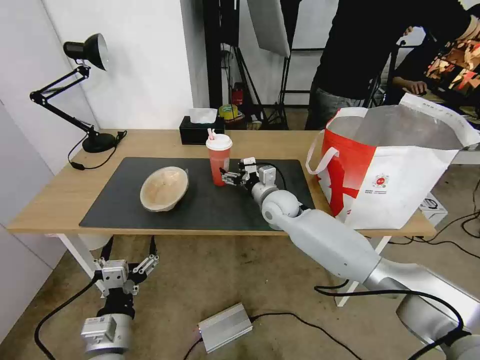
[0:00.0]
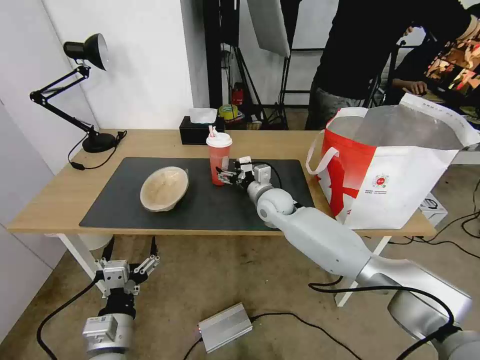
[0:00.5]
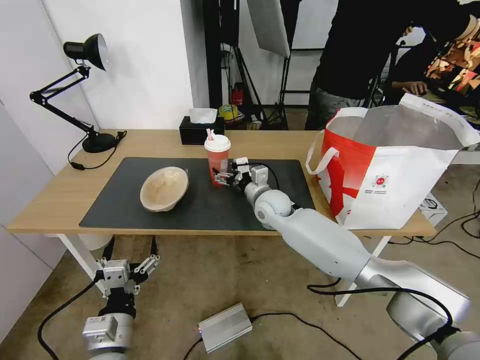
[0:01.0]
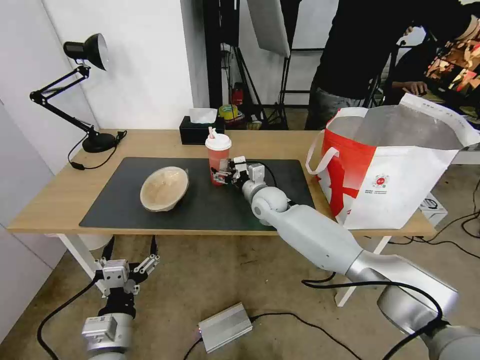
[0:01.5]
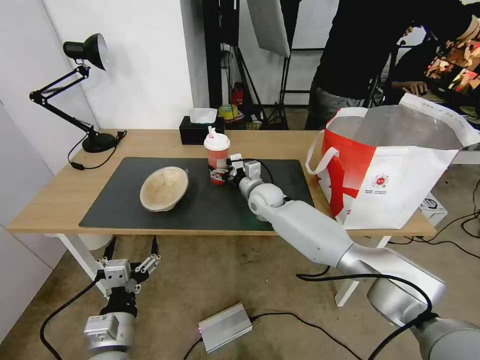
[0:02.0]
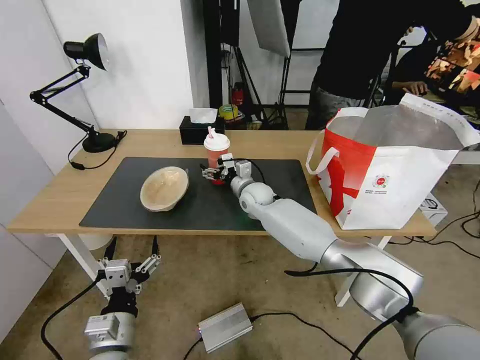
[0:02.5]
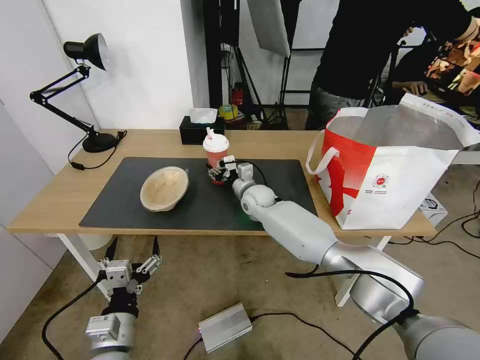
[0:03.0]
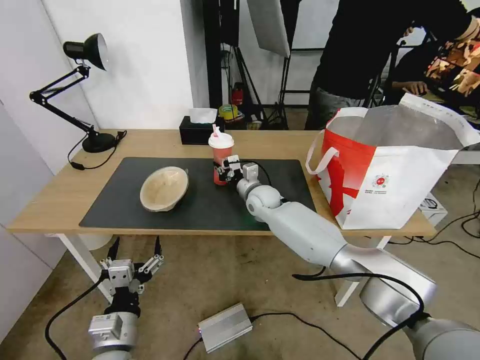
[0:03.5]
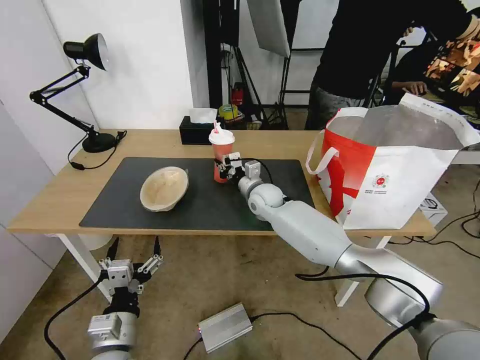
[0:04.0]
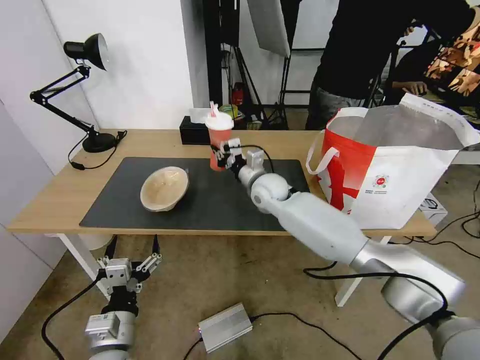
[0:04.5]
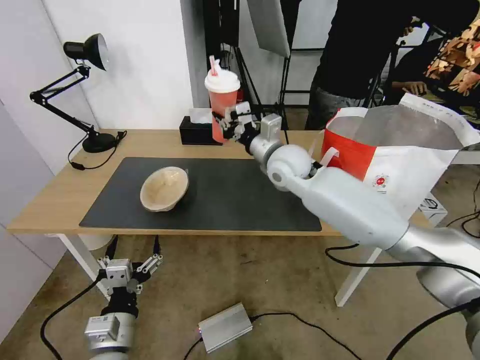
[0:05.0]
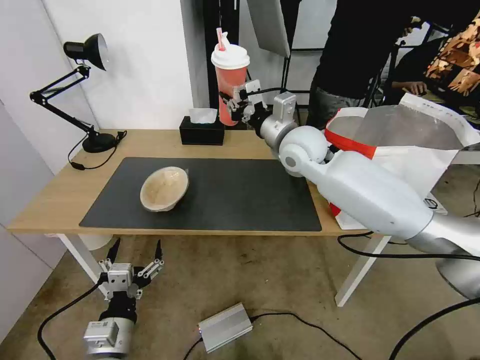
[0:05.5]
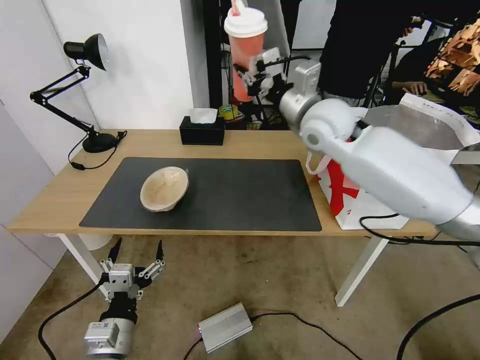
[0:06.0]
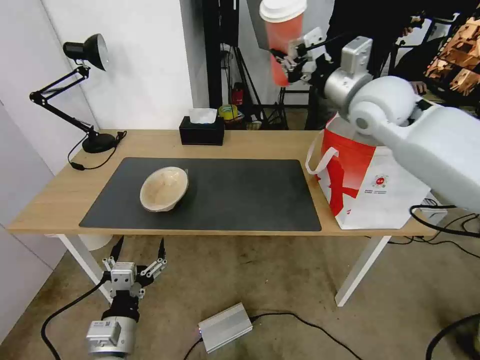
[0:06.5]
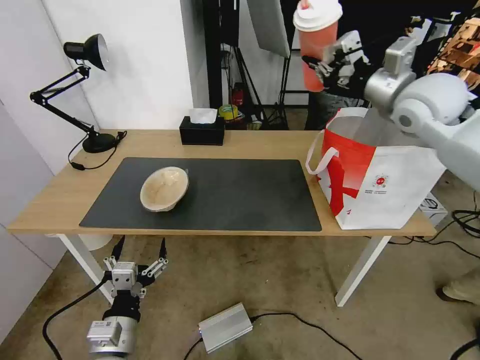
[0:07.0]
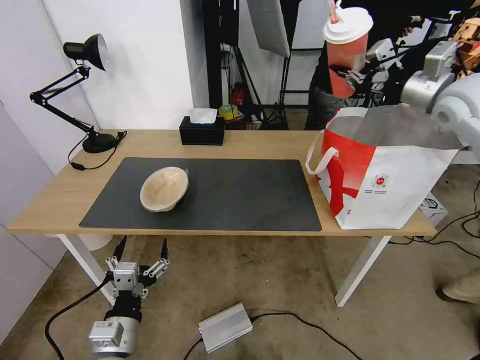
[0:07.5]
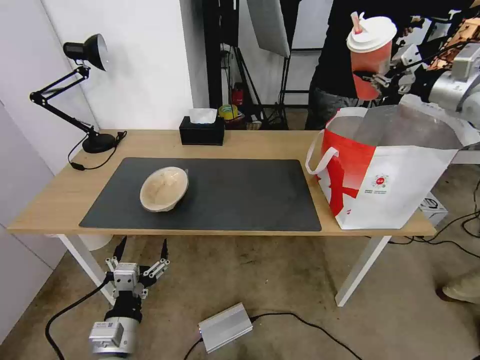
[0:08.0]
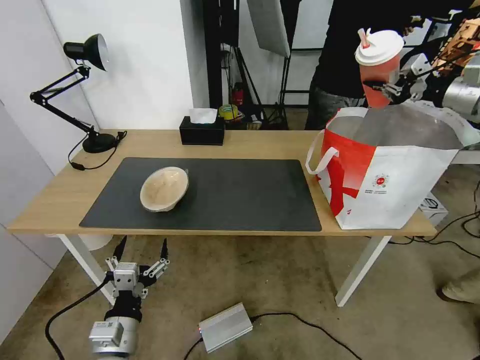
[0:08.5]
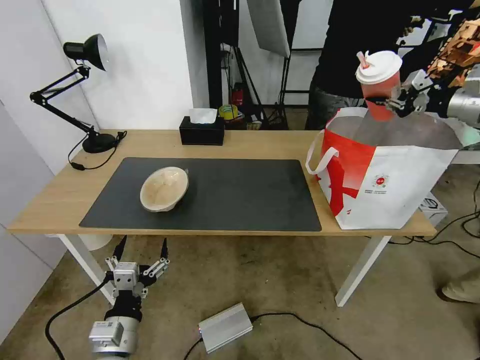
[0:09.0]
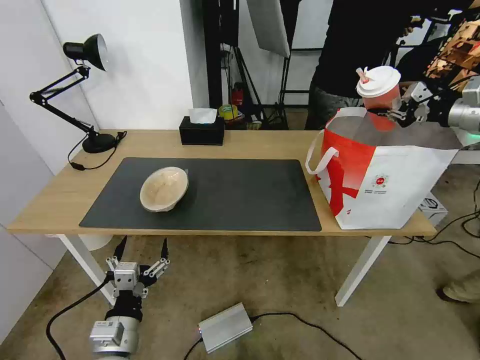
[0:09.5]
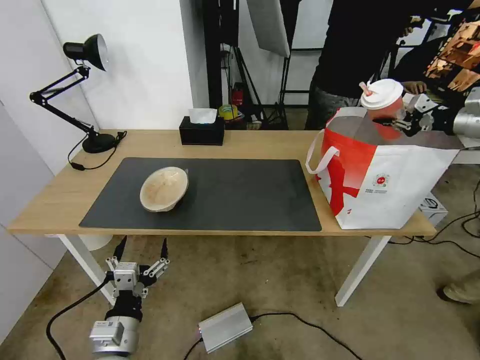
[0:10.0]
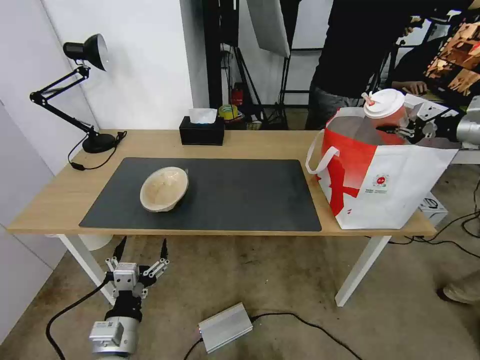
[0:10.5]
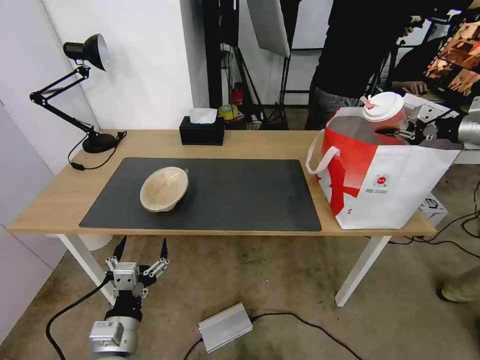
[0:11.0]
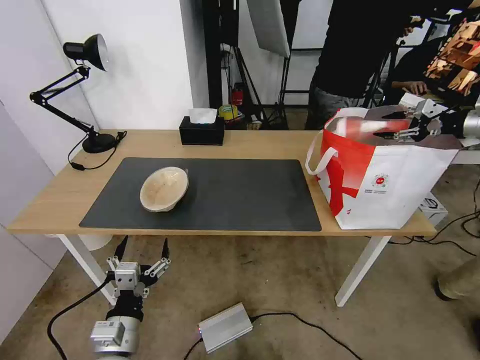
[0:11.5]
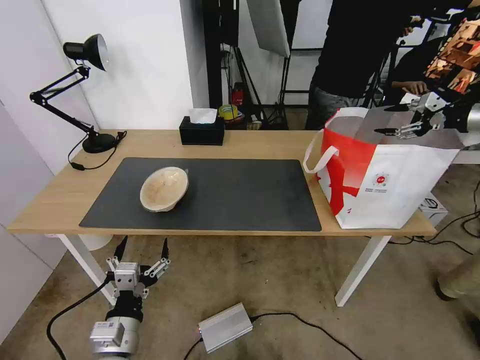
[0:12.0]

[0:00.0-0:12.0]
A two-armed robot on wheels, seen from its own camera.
Task of the whole recording: Pick up the trash from the table and place it into the takeout bag.
0:00.0 to 0:02.0: The right gripper shifts by roughly 5 cm.
0:02.0 to 0:04.0: The right gripper closes.
0:04.0 to 0:06.0: The right gripper travels upward by about 25 cm.
0:06.0 to 0:08.0: The right gripper moves to the right, approximately 30 cm.
0:08.0 to 0:10.0: The right gripper heads to the right, covering some 10 cm.
0:10.0 to 0:12.0: The right gripper opens up.

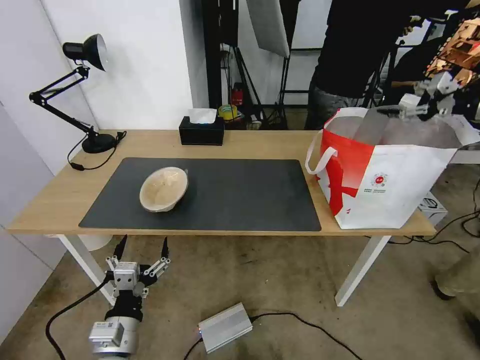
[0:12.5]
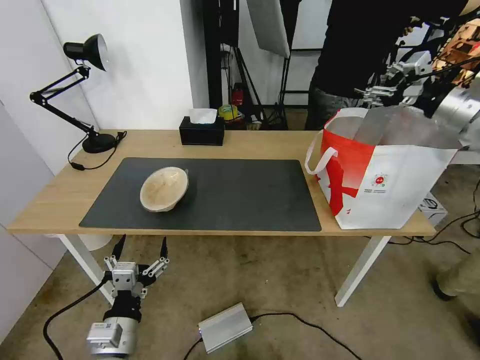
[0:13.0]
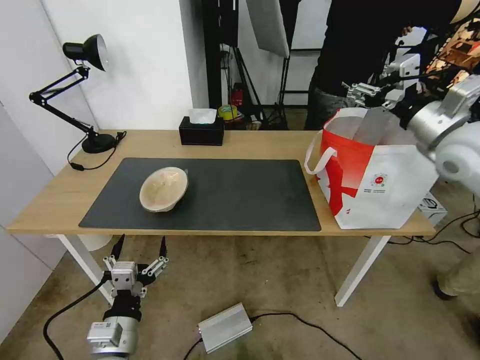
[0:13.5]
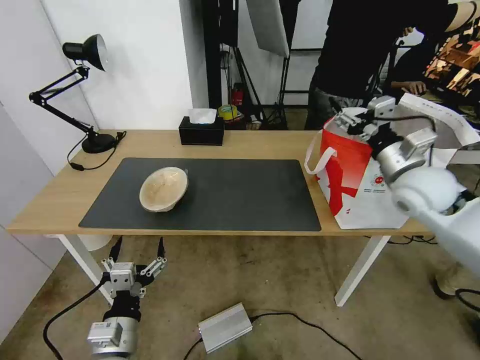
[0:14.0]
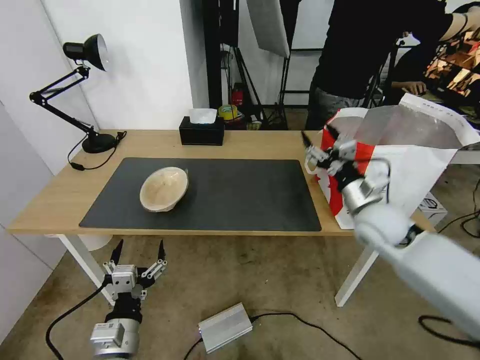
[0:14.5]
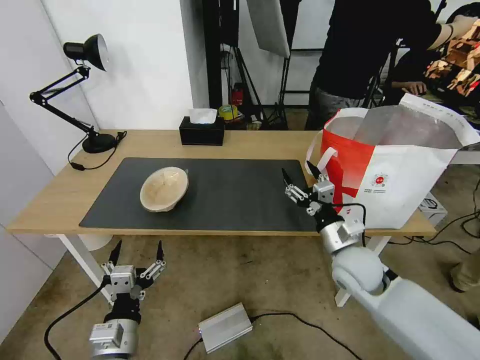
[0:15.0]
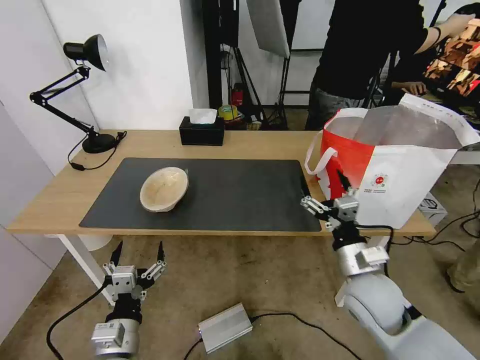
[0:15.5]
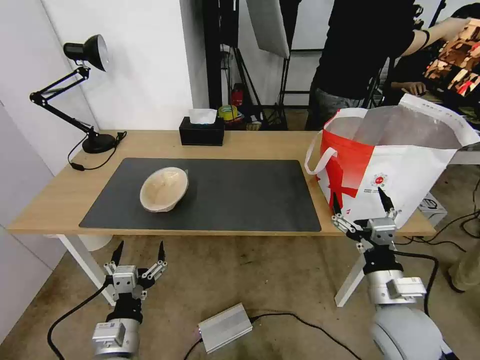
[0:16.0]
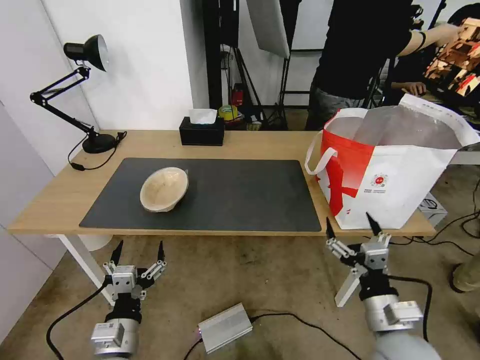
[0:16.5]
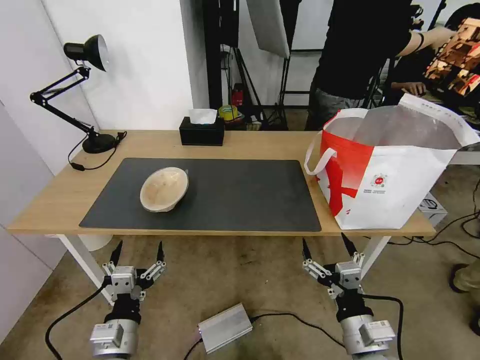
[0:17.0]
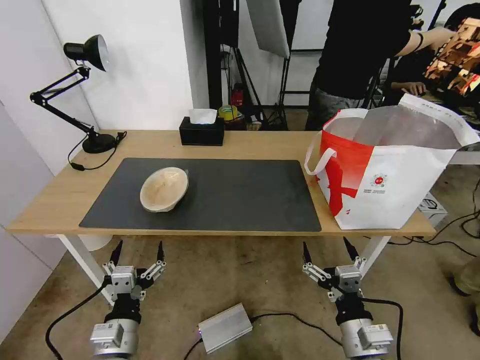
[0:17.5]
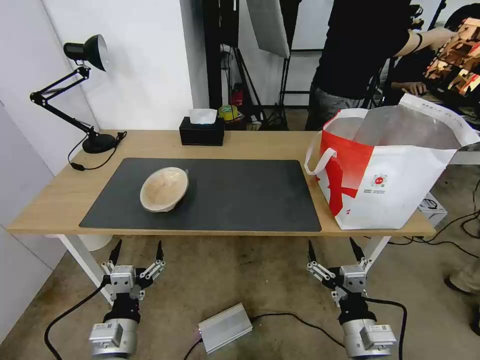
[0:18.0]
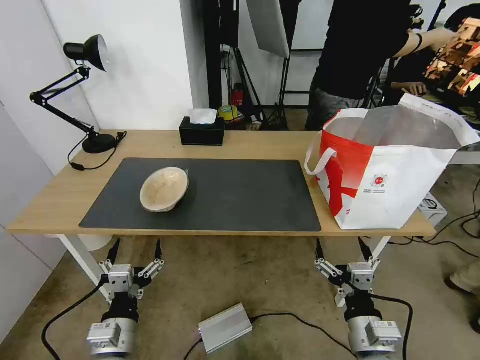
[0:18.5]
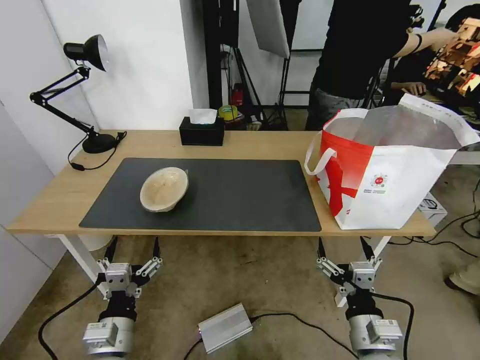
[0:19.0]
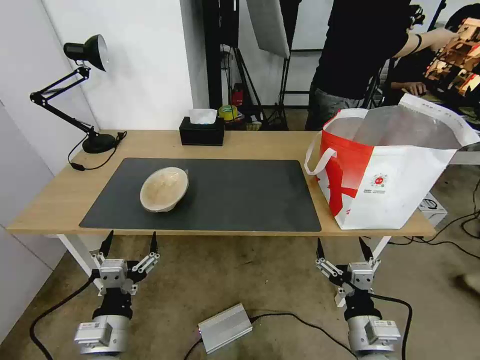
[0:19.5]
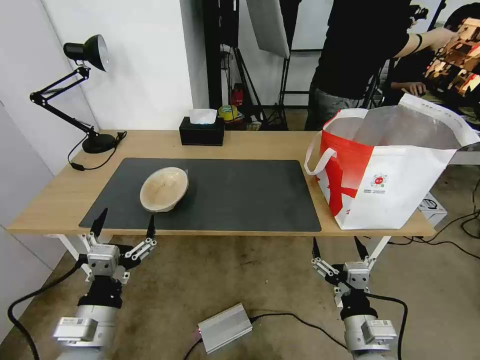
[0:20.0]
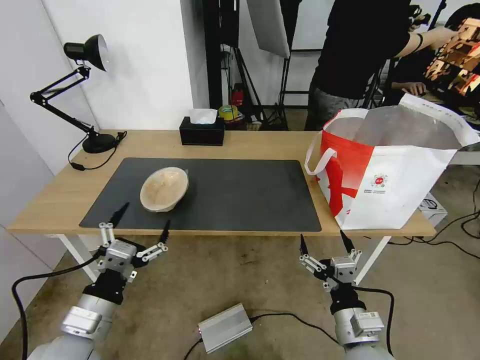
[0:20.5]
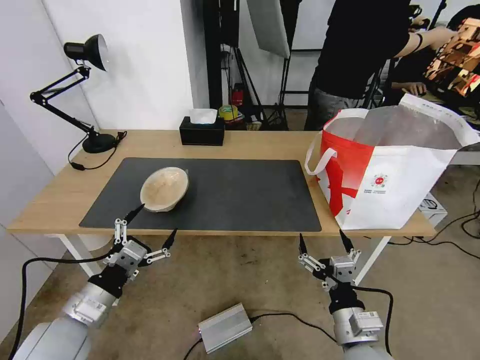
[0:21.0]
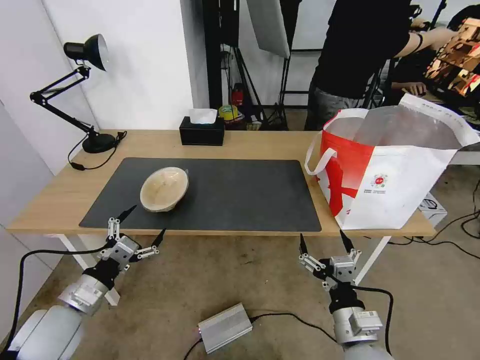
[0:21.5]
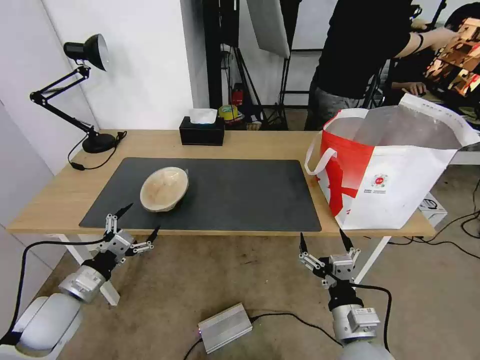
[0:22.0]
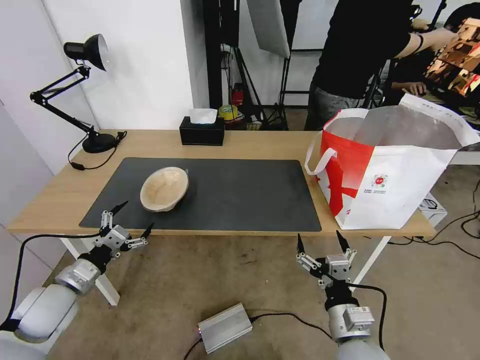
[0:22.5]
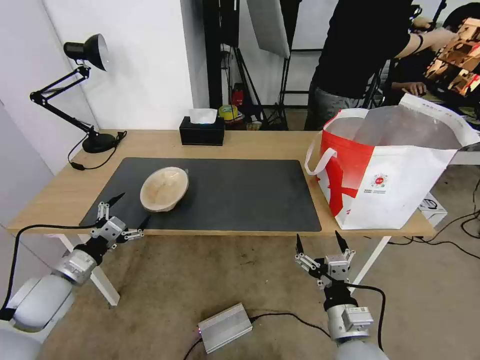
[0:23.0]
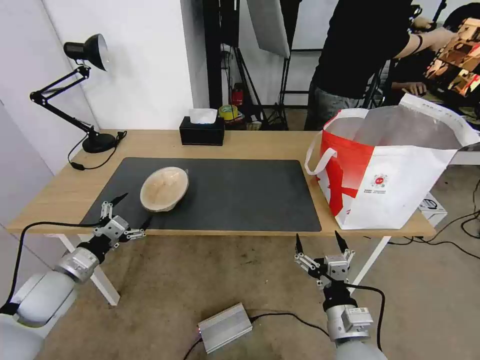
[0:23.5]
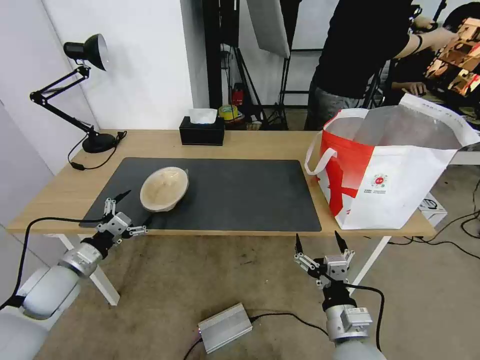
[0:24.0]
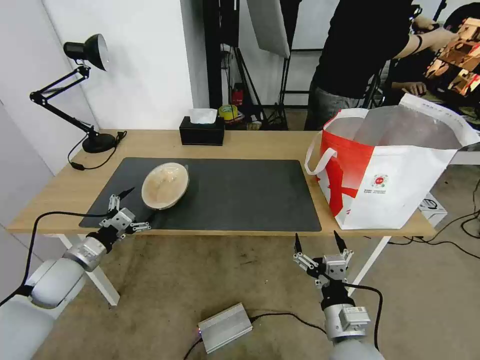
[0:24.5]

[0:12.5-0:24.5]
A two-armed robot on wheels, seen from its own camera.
Task of the whole recording: Pick up the trash from the table and place it into the takeout bag.
0:12.5 to 0:14.5: The right gripper goes approximately 40 cm to the left and downward.
0:14.5 to 0:16.5: The right gripper moves backward, about 20 cm.
0:16.5 to 0:18.5: The right gripper shifts by about 5 cm.
0:18.5 to 0:20.5: The left gripper shifts roughly 5 cm upward.
0:20.5 to 0:22.5: The left gripper heads to the left, forward and downward, covering about 15 cm.
0:22.5 to 0:24.5: The left gripper is displaced forward by roughly 5 cm.

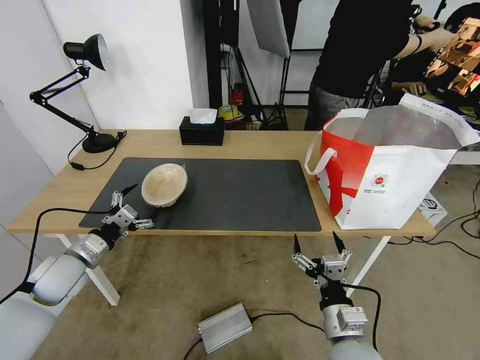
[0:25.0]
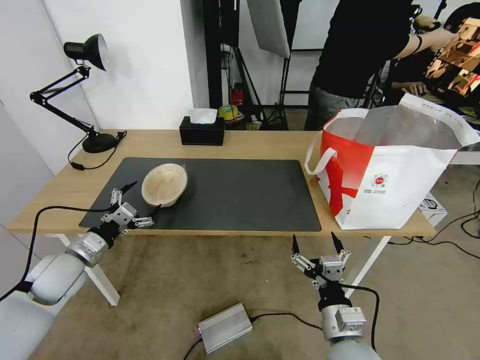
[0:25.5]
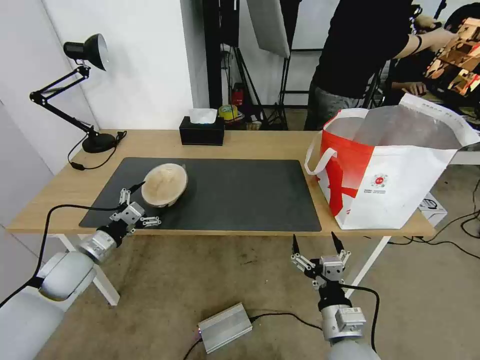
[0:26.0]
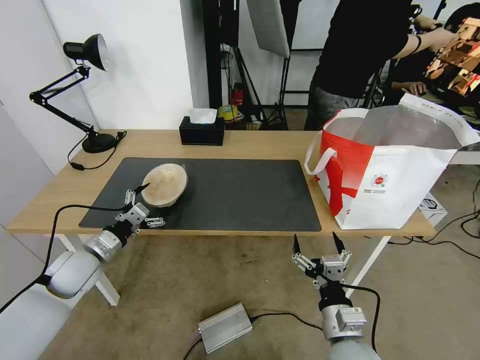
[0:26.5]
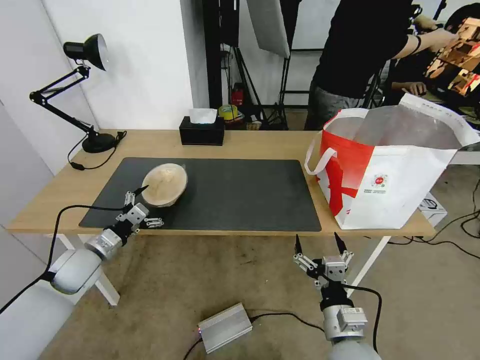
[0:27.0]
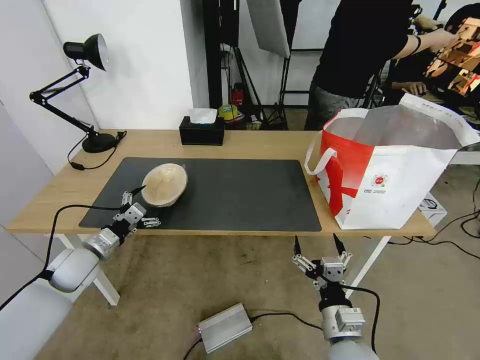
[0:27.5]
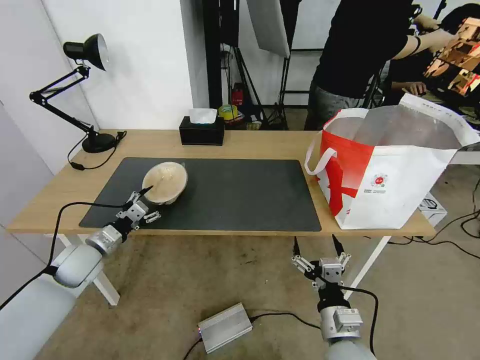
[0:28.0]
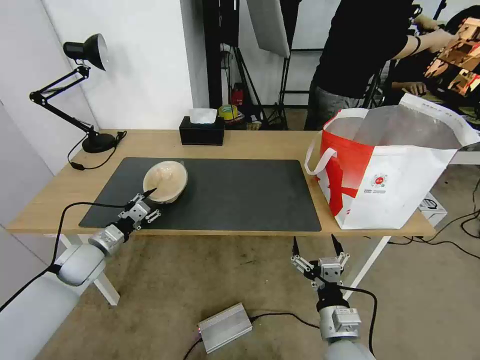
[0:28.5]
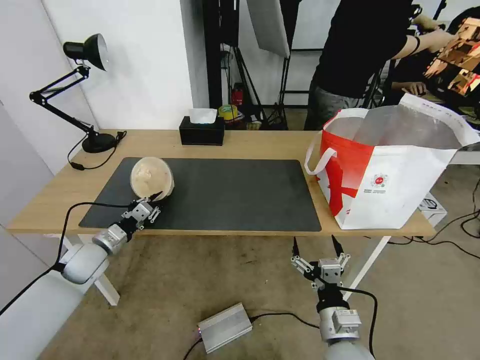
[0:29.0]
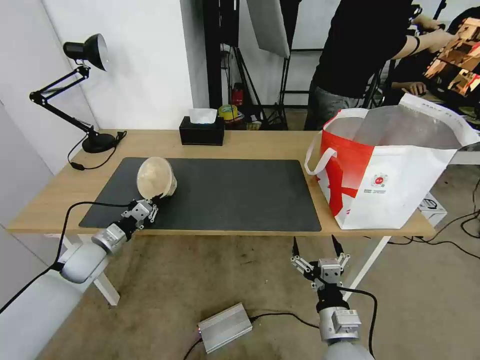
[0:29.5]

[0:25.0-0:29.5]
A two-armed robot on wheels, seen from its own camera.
Task of the whole recording: Pick up the trash from the table and place it into the takeout bag.
0:25.0 to 0:27.0: There are only small adjustments of the grippers.
0:27.0 to 0:29.5: The left gripper closes up.
